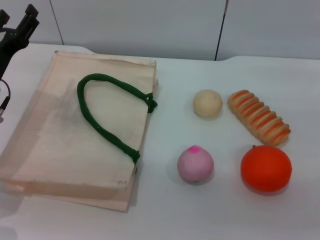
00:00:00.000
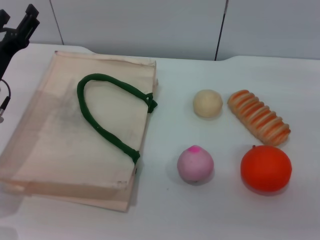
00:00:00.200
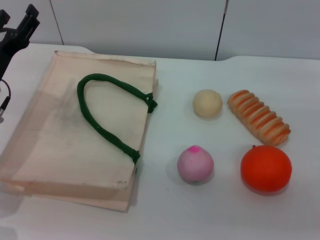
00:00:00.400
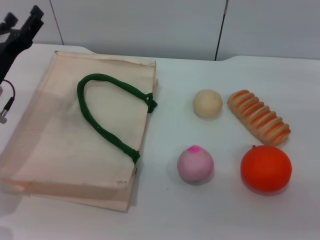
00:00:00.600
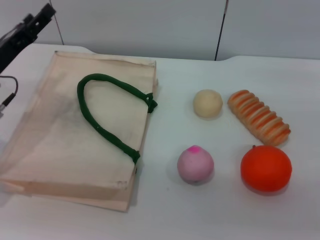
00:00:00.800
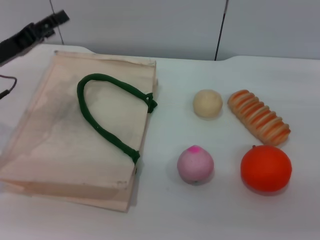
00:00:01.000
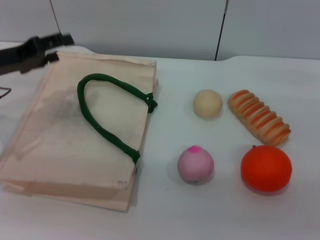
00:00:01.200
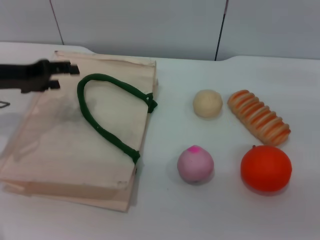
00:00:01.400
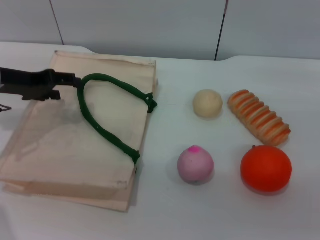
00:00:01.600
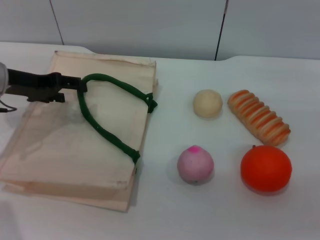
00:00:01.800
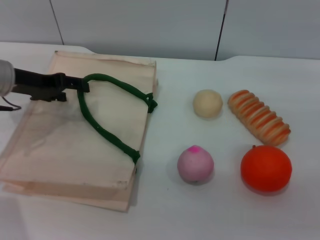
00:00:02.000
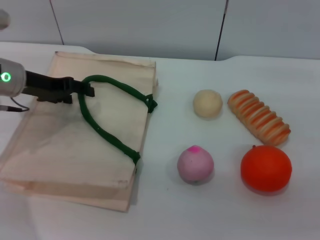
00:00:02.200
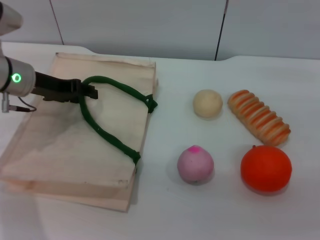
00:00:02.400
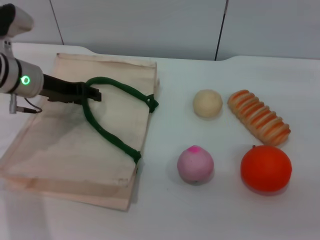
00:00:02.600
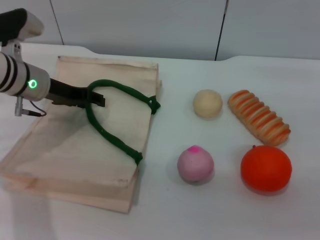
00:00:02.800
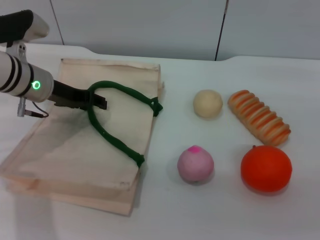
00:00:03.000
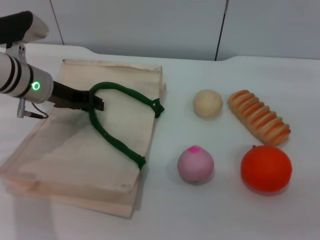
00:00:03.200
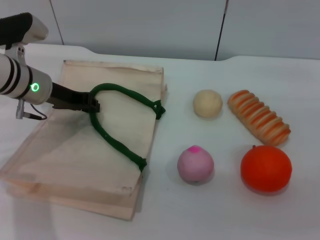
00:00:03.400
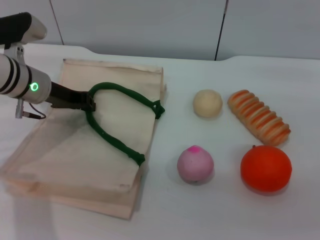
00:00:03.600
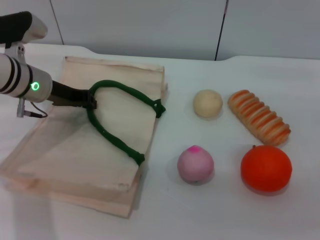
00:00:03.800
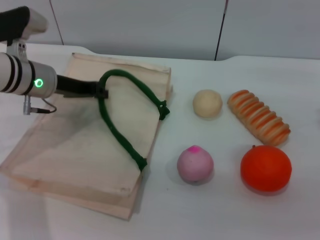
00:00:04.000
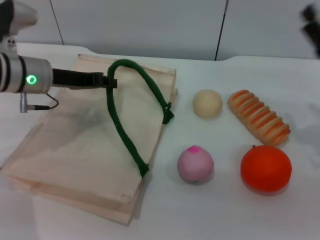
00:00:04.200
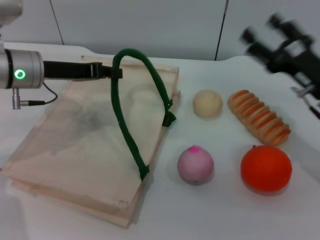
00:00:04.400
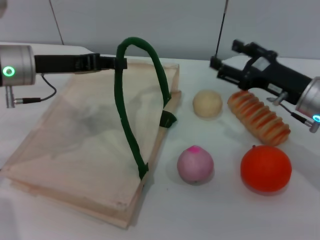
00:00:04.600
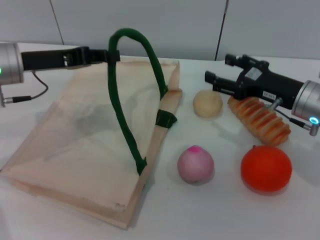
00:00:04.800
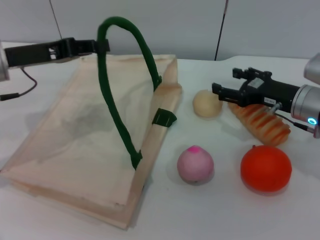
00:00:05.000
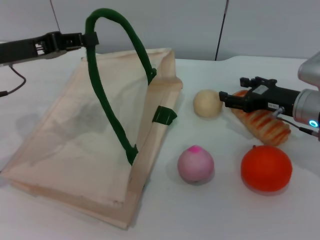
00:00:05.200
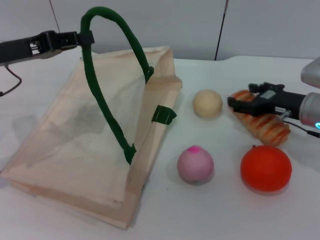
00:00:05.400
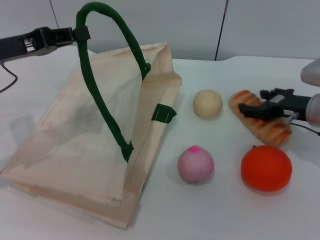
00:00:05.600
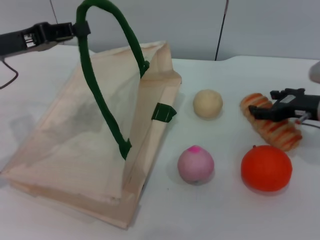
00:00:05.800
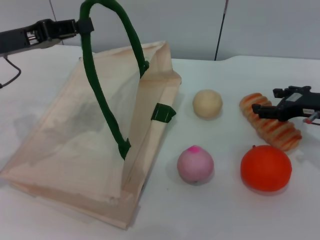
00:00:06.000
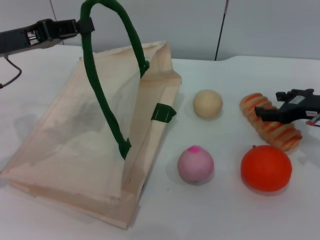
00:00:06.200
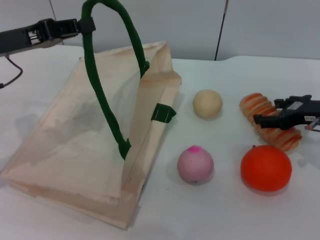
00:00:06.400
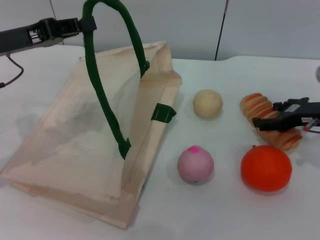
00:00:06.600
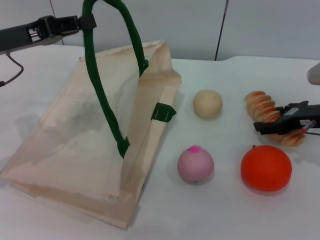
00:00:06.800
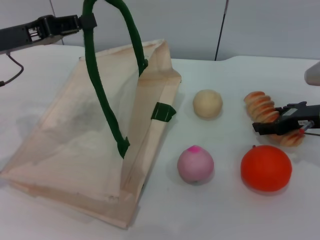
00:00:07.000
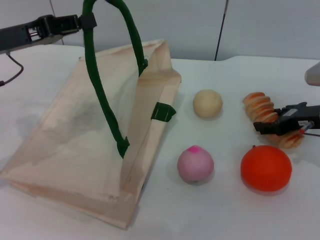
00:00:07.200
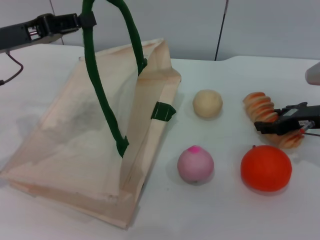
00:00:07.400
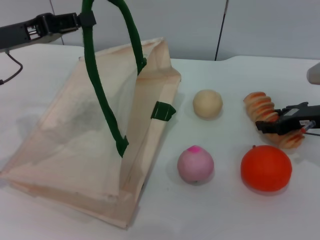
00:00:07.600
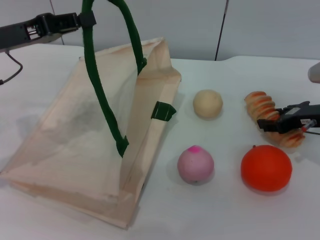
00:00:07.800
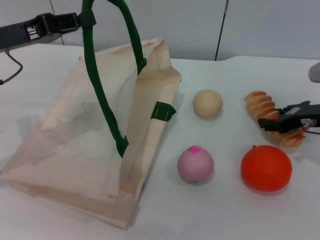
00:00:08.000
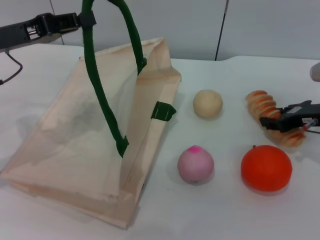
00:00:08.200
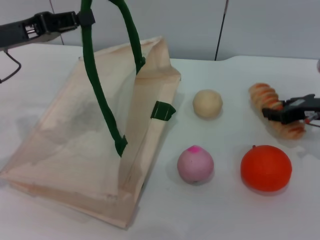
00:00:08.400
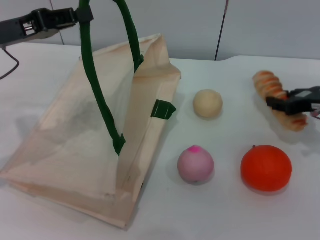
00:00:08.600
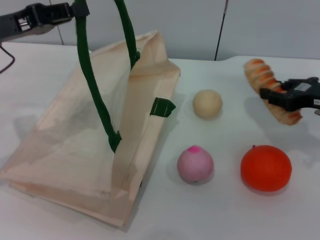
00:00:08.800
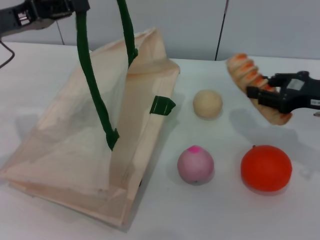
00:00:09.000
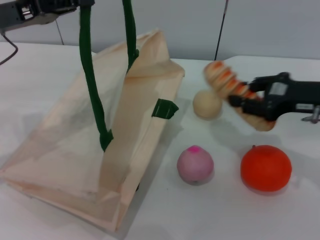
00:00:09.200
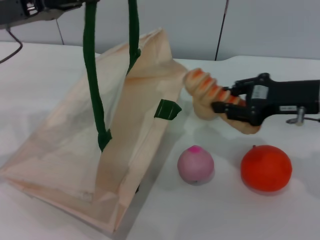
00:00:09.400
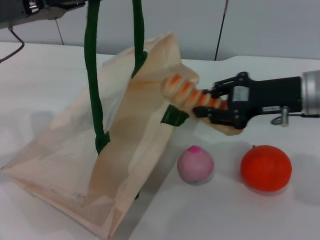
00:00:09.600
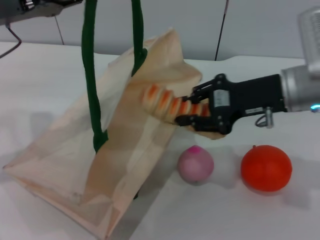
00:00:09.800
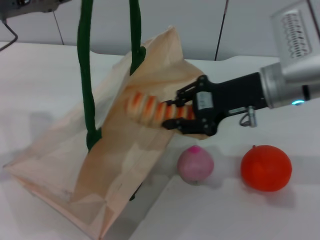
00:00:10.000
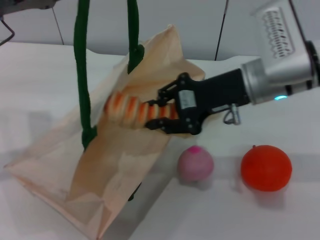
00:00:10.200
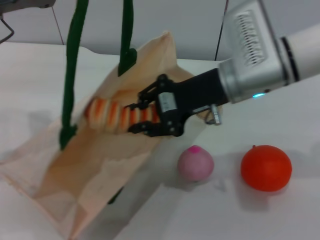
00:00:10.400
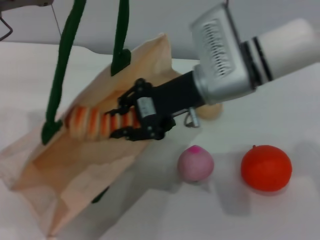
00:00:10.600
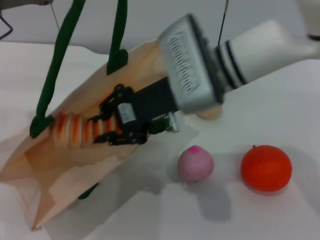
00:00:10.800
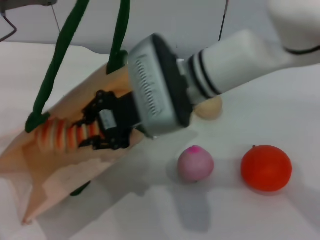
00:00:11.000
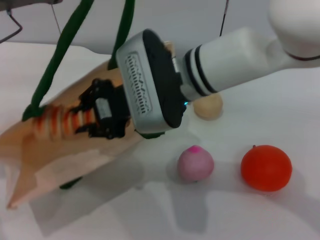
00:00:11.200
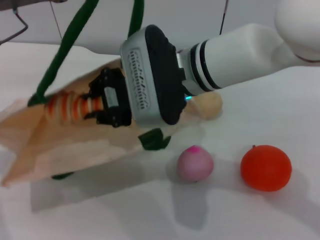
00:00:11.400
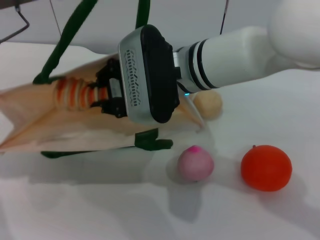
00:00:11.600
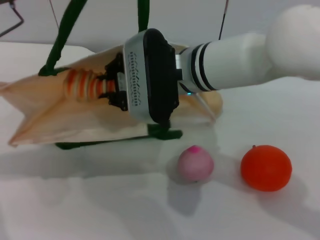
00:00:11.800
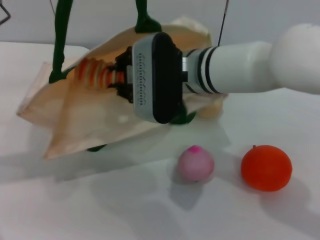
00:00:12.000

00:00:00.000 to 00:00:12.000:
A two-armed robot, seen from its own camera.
Task of the whole recording: pick up the bread and egg yolk pastry from the table and place it in the white handbag.
Step, 00:00:00.000 to 00:00:04.000: Lift the woven bag with the left gripper to open it.
Step, 00:00:04.200 to 00:00:08.600: Pick up the bread with the right gripper.
00:00:00.000 to 00:00:01.600: The left gripper moves upward, some 5 cm.
00:00:01.600 to 00:00:03.000: The left gripper moves to the right, about 5 cm, and closes.
00:00:03.000 to 00:00:04.400: The right gripper is displaced to the left by about 5 cm. Meanwhile the left gripper closes up.
00:00:04.400 to 00:00:06.000: The left gripper shifts by approximately 5 cm.
00:00:06.000 to 00:00:07.600: The grippers stay close to where they were, moving slightly.
00:00:07.600 to 00:00:09.000: The right gripper shifts roughly 5 cm upward, and closes.
00:00:09.000 to 00:00:10.400: The right gripper travels to the left by about 20 cm.
00:00:10.400 to 00:00:12.000: The right gripper is displaced to the left by roughly 10 cm.

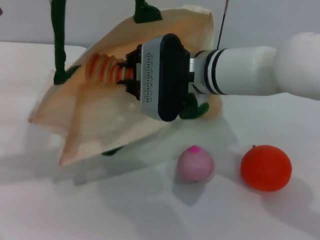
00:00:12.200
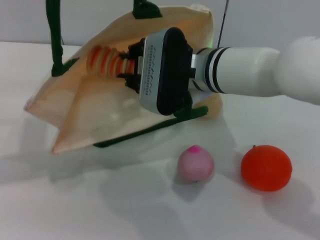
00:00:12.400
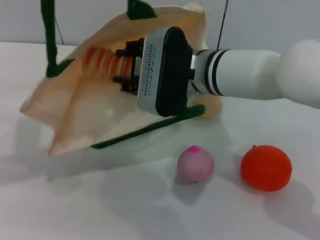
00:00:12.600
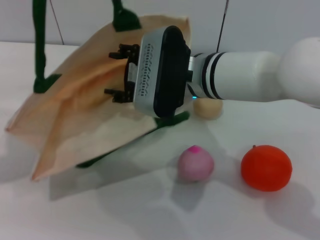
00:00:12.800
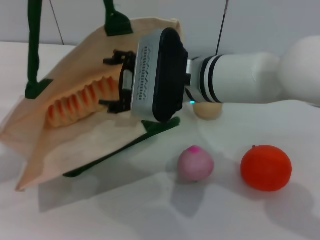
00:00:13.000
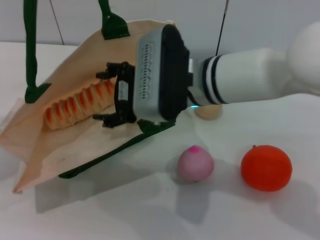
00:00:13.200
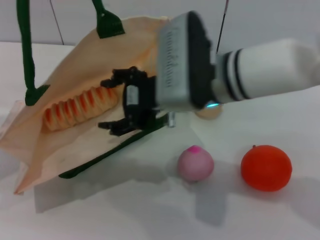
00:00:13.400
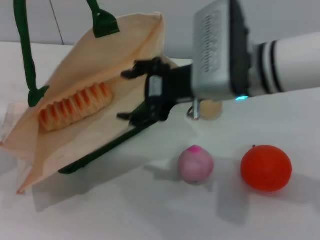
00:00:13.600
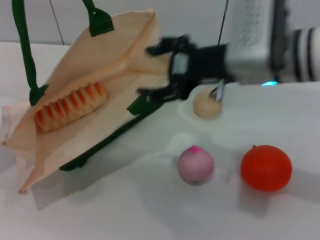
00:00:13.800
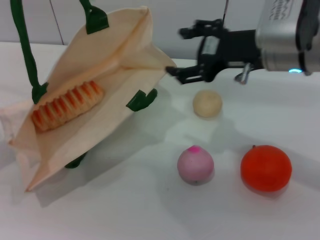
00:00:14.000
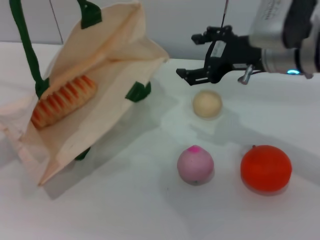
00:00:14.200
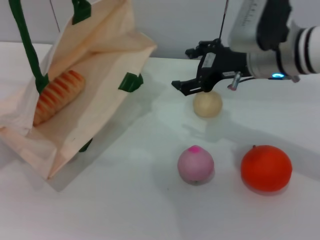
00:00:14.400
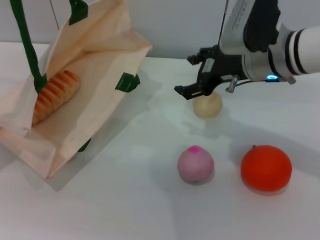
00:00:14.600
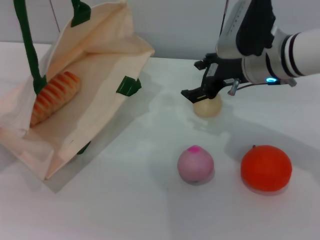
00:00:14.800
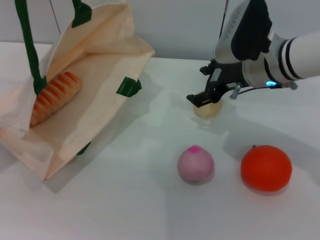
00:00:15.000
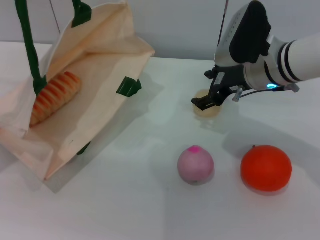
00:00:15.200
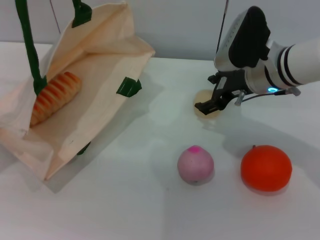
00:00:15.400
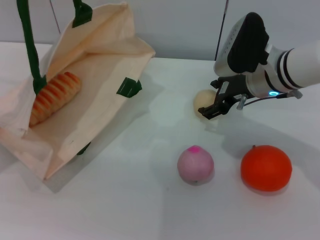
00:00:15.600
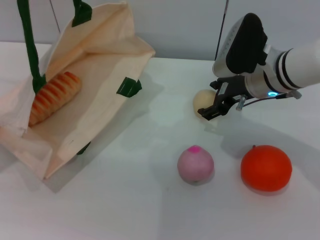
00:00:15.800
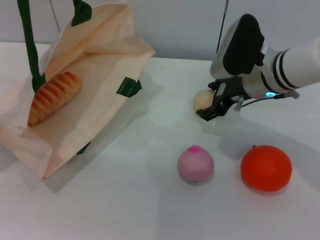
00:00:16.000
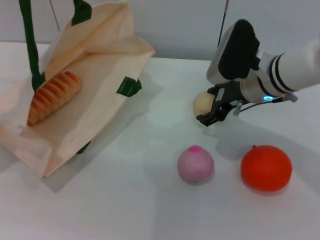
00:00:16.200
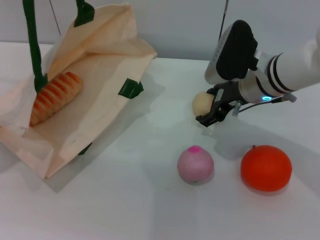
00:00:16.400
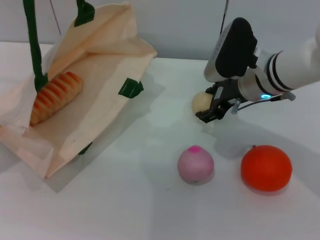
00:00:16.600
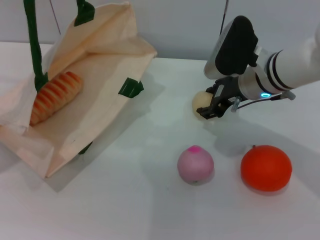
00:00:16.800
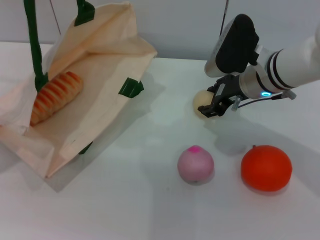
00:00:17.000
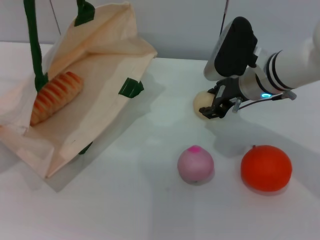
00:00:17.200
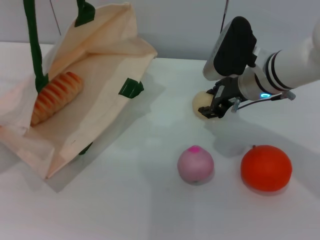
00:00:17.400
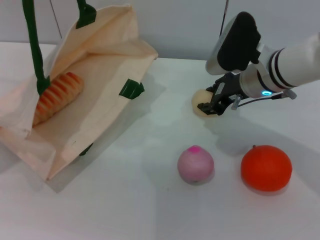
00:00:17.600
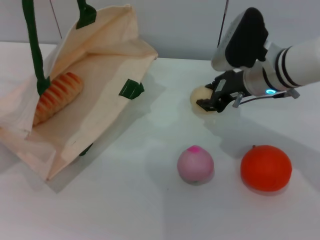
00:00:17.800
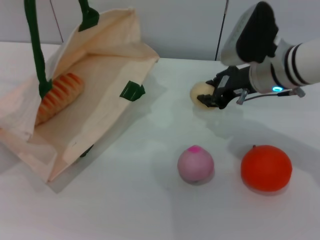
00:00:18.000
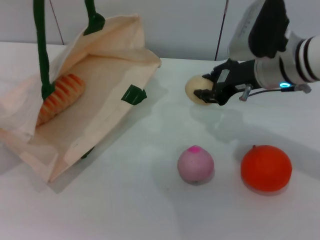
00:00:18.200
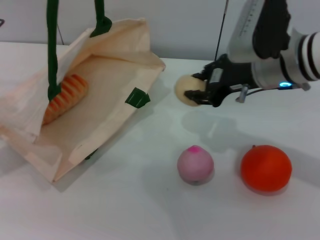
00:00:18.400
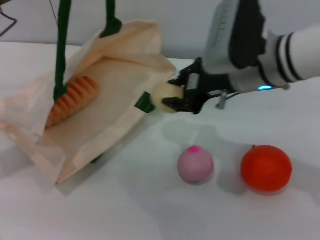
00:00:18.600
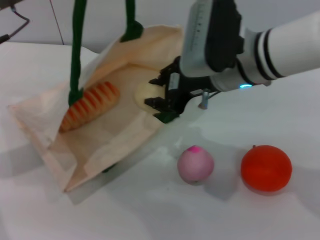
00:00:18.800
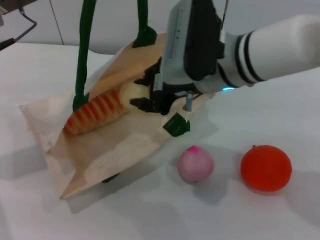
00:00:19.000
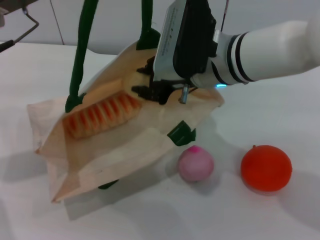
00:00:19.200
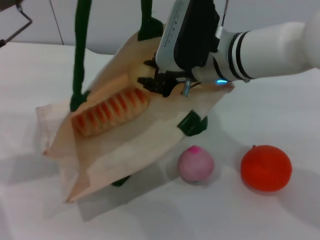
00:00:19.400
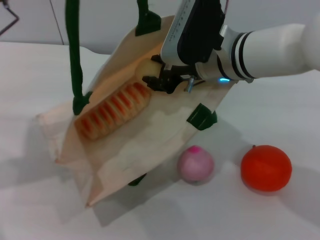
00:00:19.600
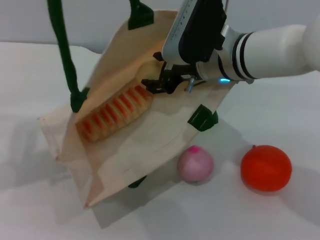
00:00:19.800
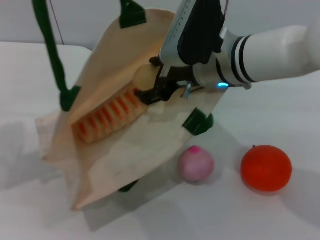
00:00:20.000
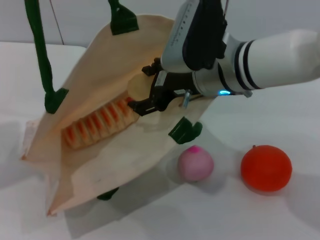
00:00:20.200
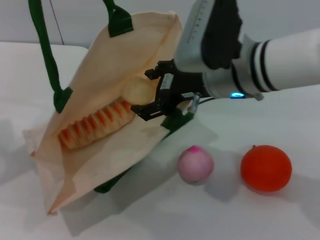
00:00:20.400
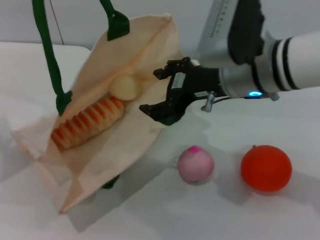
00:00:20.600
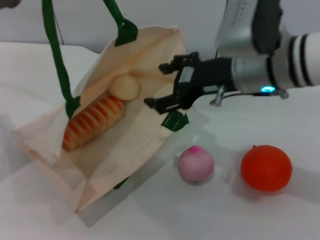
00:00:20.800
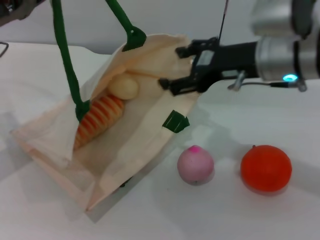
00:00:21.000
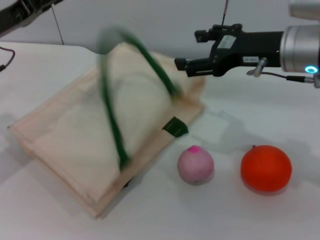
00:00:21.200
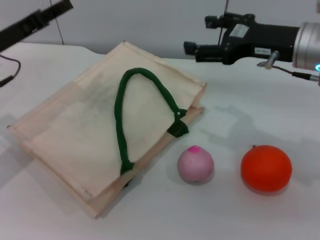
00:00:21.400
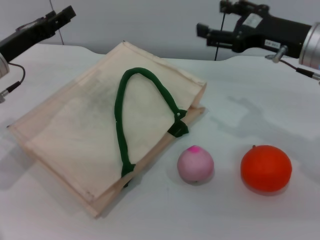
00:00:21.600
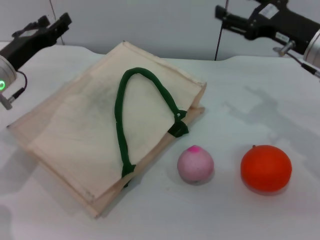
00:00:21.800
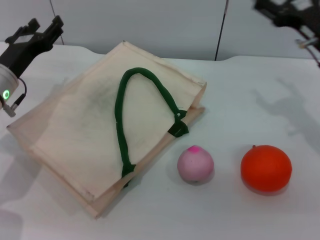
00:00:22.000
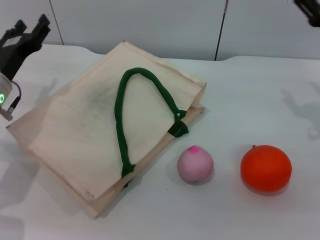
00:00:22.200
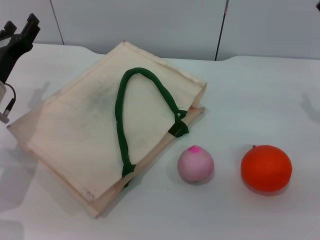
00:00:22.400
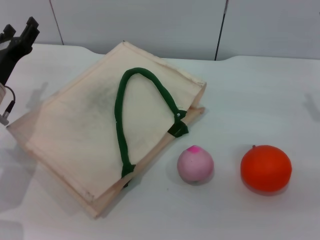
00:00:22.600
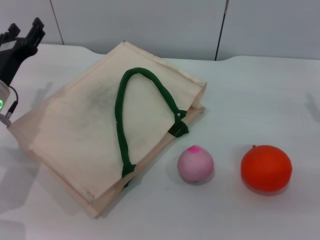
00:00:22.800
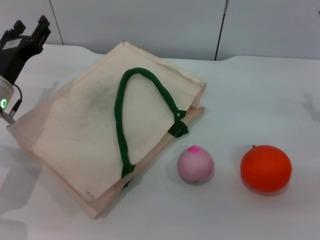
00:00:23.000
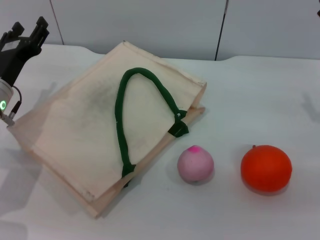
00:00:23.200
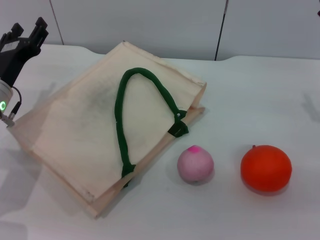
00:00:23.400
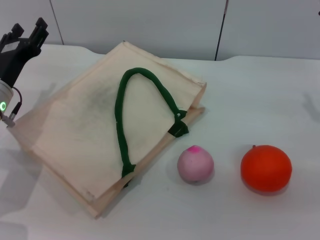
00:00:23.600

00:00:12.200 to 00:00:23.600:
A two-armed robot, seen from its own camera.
Task of the whole recording: pick up the bread and egg yolk pastry from the table and place it in the white handbag.
Step, 00:00:13.200 to 00:00:18.200: Pick up the egg yolk pastry with the right gripper.
Step, 00:00:18.400 to 00:00:20.600: Place the egg yolk pastry into the woven bag with the right gripper.
Step, 00:00:20.800 to 00:00:21.600: Lower the woven bag with the left gripper to close it.
00:00:12.200 to 00:00:13.600: The right gripper changes place by about 5 cm, and opens; the left gripper heads to the left, covering some 5 cm.
00:00:13.600 to 00:00:15.000: The right gripper heads forward, to the right and downward, covering some 10 cm.
00:00:15.000 to 00:00:16.400: The grippers stay close to where they were, moving slightly.
00:00:16.400 to 00:00:17.800: The right gripper closes up.
00:00:17.800 to 00:00:19.400: The right gripper moves to the left, some 10 cm, while the left gripper heads to the right, covering about 5 cm.
00:00:19.400 to 00:00:20.800: The left gripper is displaced to the left by about 5 cm, while the right gripper moves to the right, approximately 5 cm, and opens up.
00:00:20.800 to 00:00:22.200: The right gripper goes some 20 cm to the right and downward, while the left gripper goes about 10 cm downward, and opens.
00:00:22.200 to 00:00:23.600: The grippers make only small movements.
